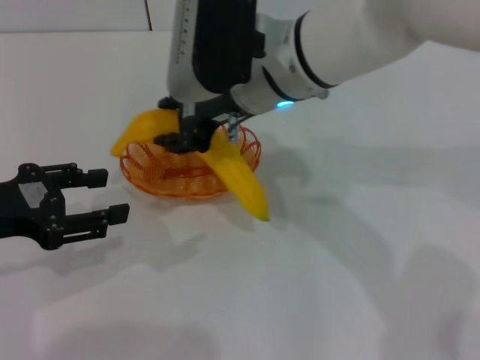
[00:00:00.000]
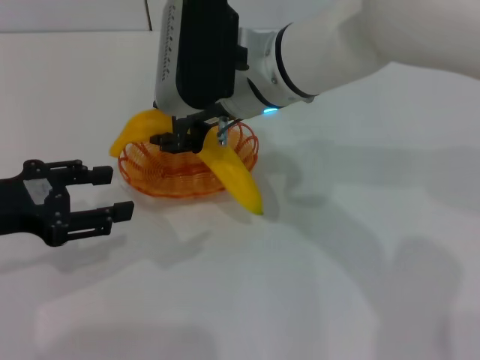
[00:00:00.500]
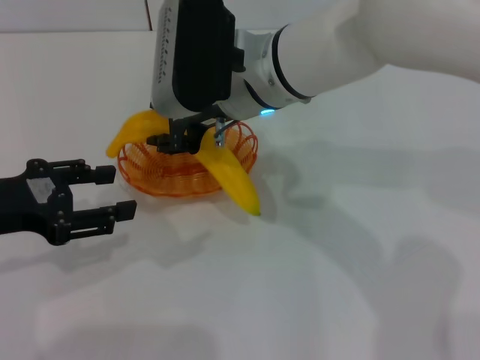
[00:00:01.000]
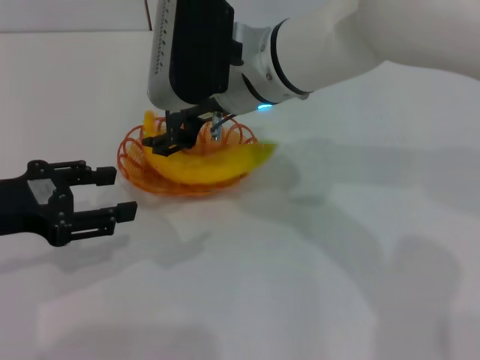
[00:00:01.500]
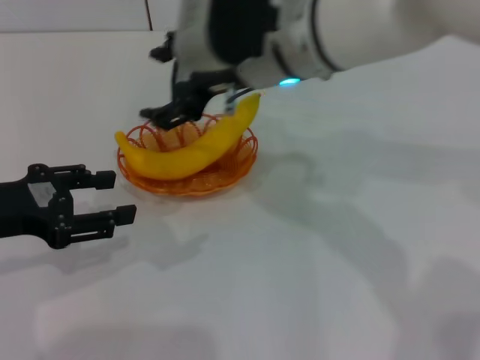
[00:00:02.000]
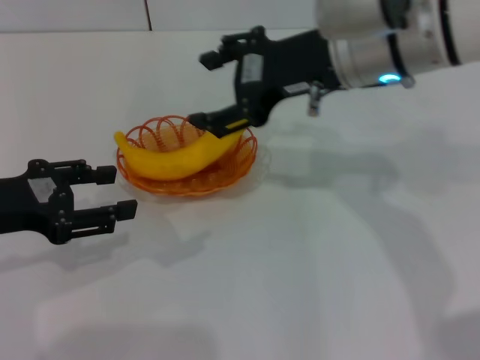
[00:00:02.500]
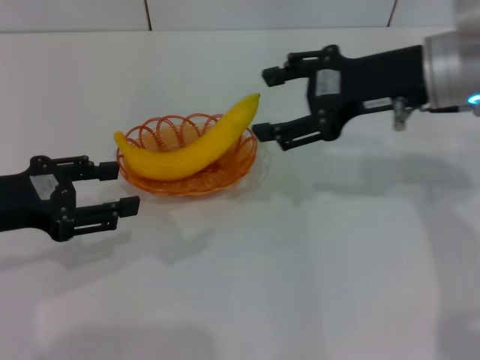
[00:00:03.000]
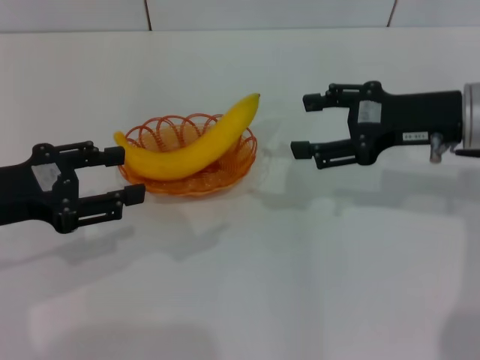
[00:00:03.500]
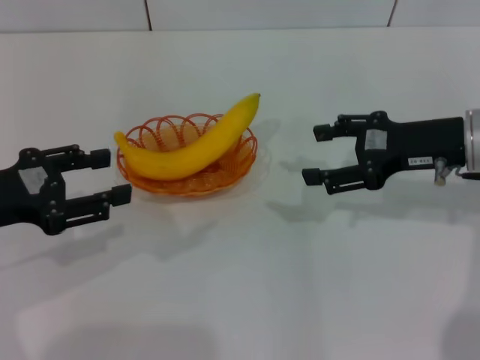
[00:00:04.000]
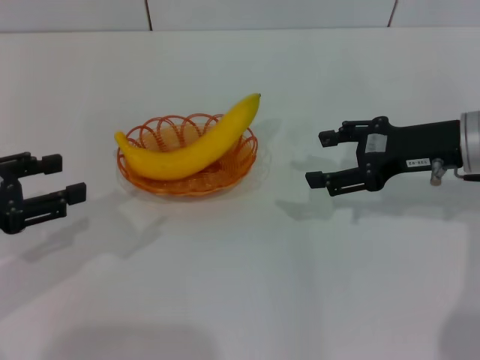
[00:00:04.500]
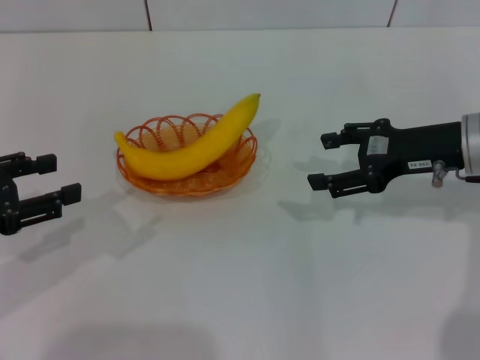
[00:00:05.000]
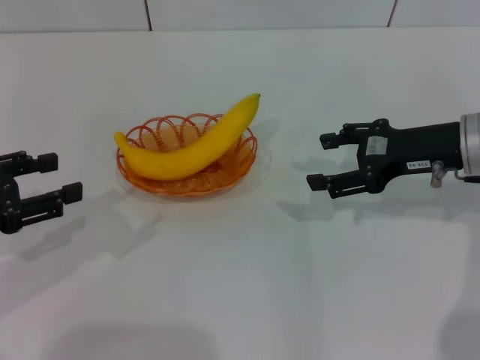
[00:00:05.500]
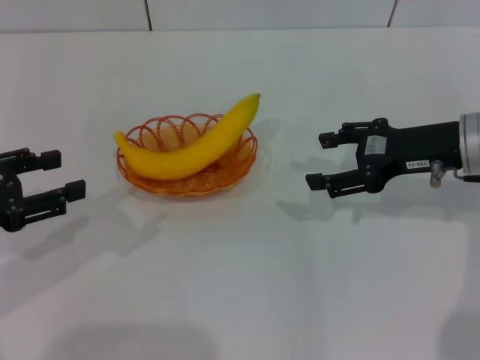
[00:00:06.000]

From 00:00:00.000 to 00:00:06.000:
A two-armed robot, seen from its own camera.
From 00:00:00.000 to 00:00:02.000: The right gripper opens.
From 00:00:02.000 to 00:00:04.000: The right gripper is displaced to the right by roughly 20 cm.
From 00:00:04.000 to 00:00:06.000: The grippers make only small movements.
